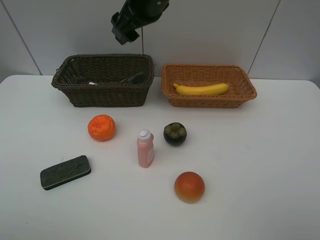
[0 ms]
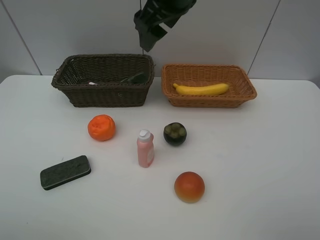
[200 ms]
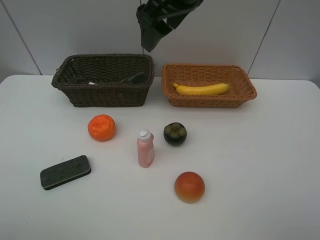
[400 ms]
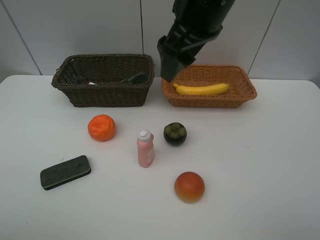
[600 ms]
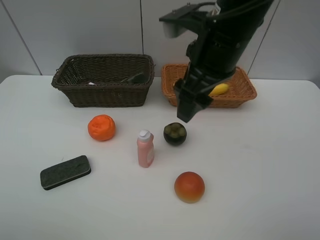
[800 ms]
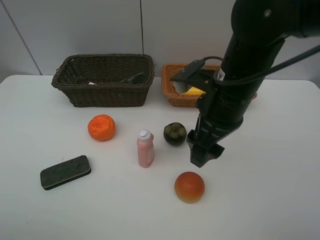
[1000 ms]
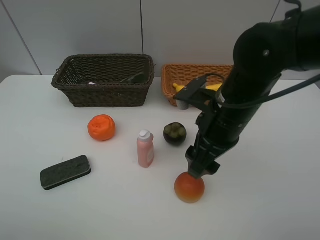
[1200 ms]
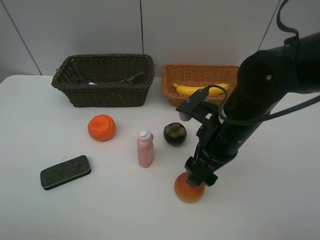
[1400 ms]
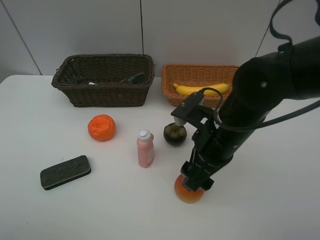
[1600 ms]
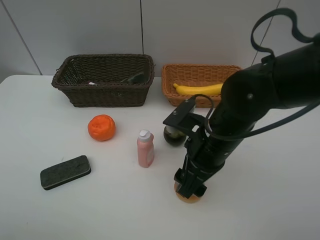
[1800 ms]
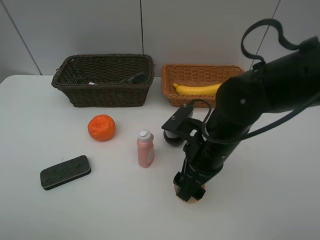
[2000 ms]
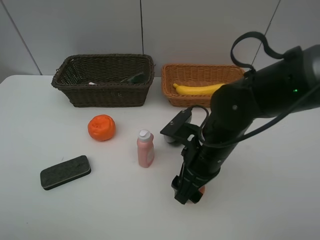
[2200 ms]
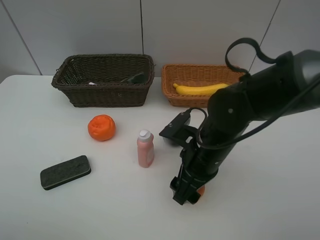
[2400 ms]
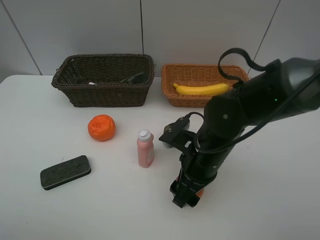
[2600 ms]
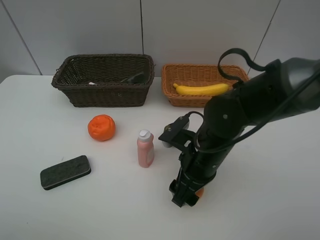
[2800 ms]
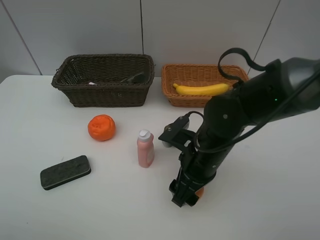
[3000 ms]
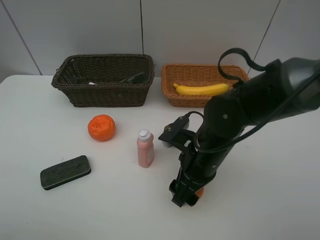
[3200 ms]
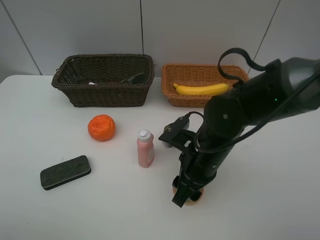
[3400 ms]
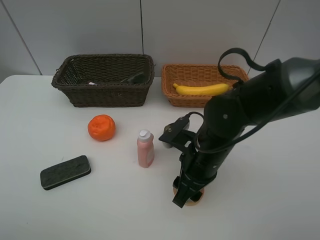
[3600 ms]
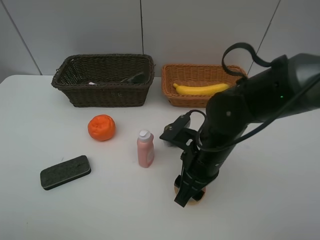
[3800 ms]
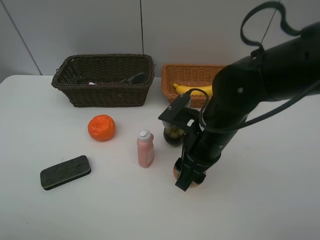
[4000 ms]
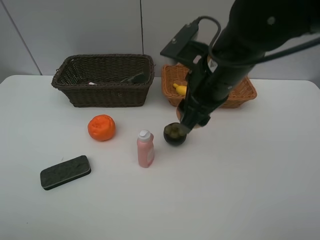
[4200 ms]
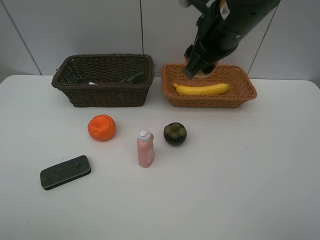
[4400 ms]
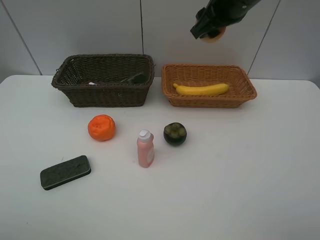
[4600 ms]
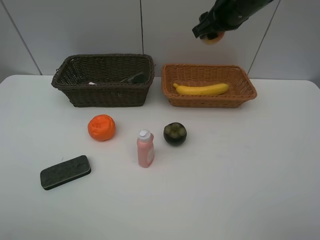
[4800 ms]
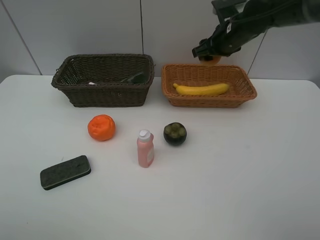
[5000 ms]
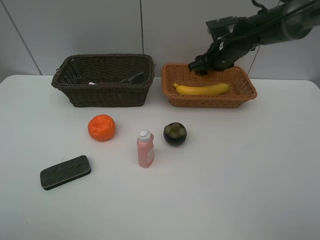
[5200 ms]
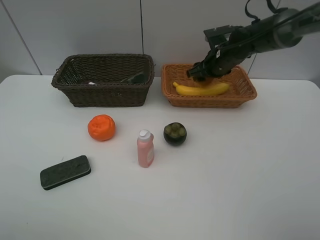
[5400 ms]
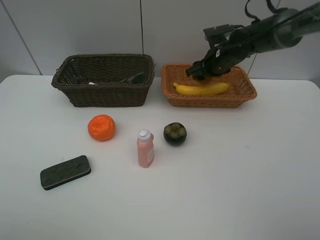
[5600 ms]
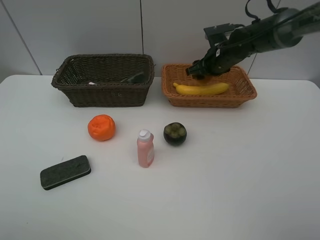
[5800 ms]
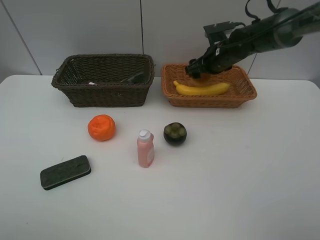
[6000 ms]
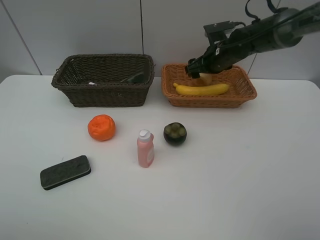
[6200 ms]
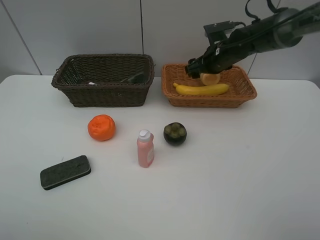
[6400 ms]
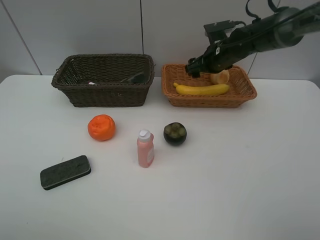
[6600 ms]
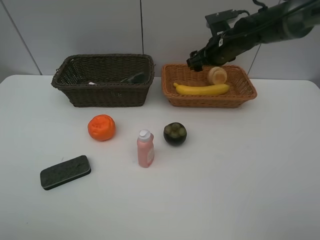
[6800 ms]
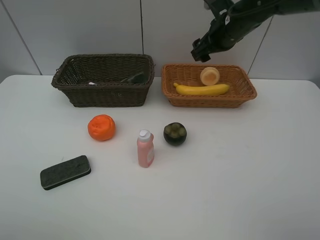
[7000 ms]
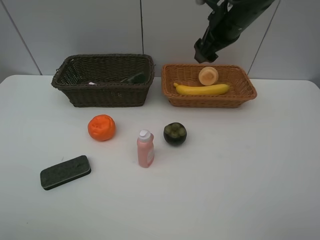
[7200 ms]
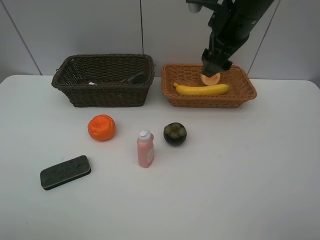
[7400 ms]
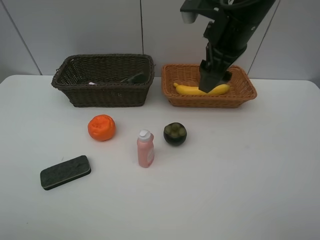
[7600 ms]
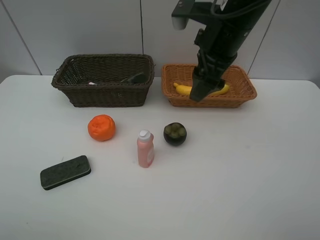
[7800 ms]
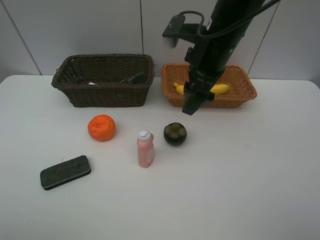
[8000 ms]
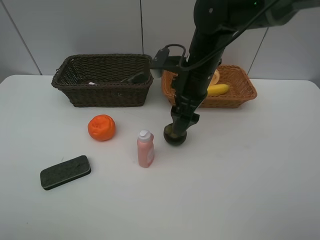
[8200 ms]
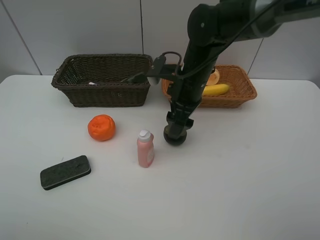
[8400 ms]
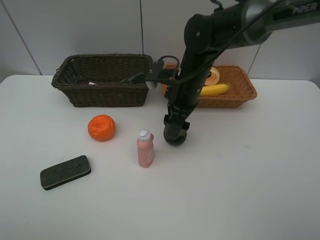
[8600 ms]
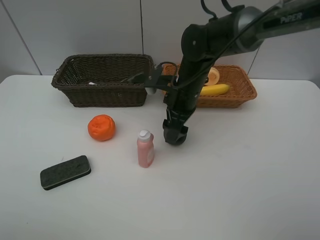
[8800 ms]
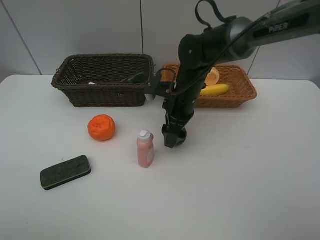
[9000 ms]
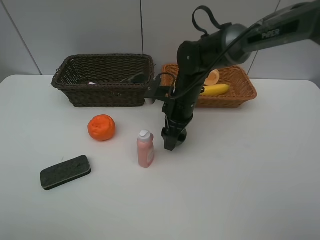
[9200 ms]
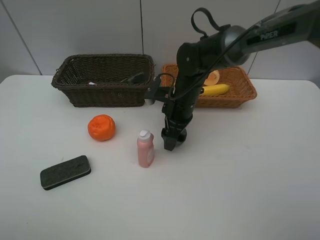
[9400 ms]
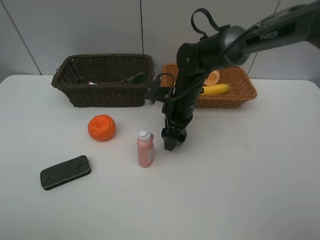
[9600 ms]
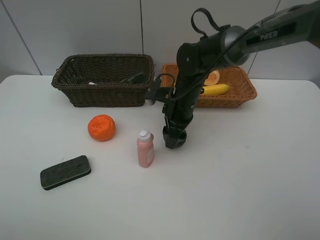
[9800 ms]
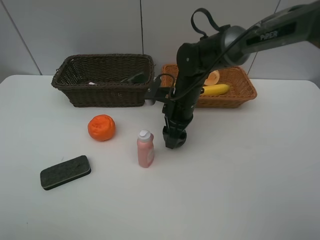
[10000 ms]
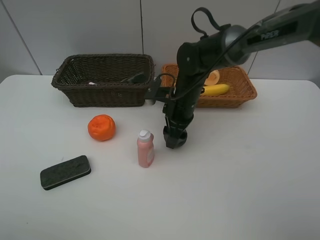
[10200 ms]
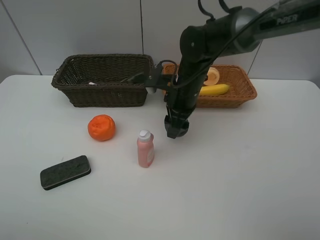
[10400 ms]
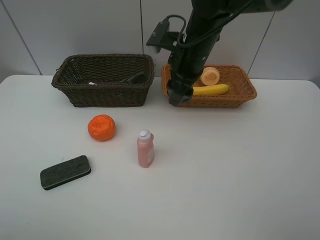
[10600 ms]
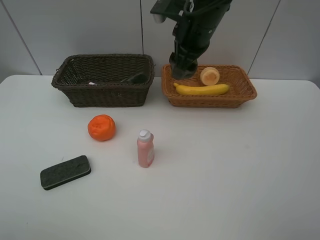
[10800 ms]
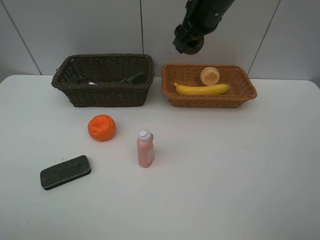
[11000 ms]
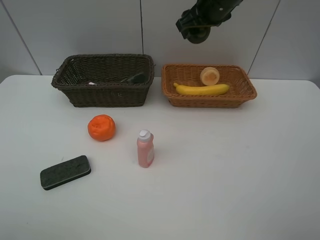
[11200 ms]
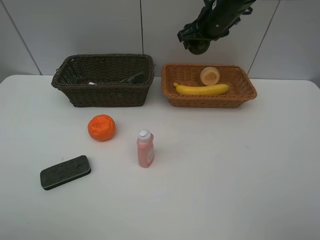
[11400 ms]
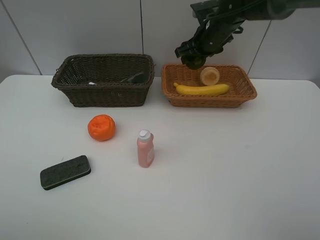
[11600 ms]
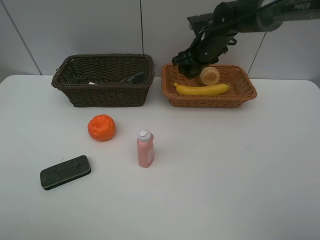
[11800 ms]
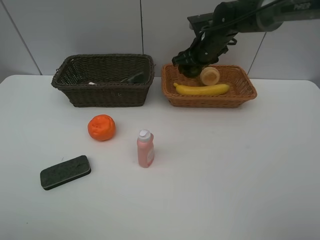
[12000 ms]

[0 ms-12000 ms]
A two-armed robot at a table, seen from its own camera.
Task of the whole recording: Place multiple objects separately in different baskets.
Step, 0 ms to 3800 ms: Pick up egg yolk pastry with right gripper.
Step, 4000 ms to 6800 ms: Place the egg yolk pastry in the light basket with right gripper.
Step, 7000 ms to 10400 ms: Pick up the mangosteen with right gripper.
0 ms to 1600 ms: The right gripper goes some 25 cm backward, downward and to the right.
1600 ms to 3000 ms: The right gripper is displaced downward by about 5 cm.
3000 ms to 4400 ms: The right gripper heads upward and forward, covering some 20 cm.
4400 ms to 6000 ms: The right gripper goes some 20 cm forward and downward.
6000 ms to 7600 ms: The right gripper is displaced backward and upward by roughly 20 cm.
7600 ms to 9000 ms: The right gripper is displaced downward by some 15 cm.
9000 ms to 10400 ms: There are only small adjustments of the grippers.
10400 ms to 12000 ms: The right gripper goes roughly 15 cm forward and to the right, and reaches roughly 15 cm upward, then returns.

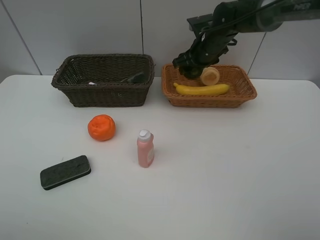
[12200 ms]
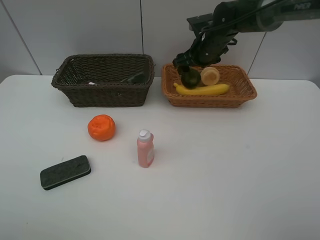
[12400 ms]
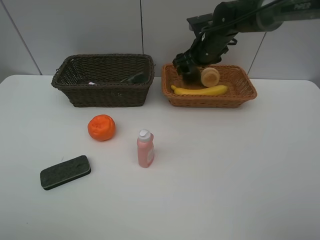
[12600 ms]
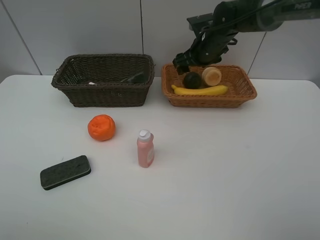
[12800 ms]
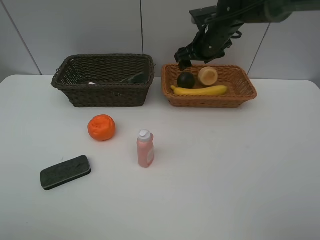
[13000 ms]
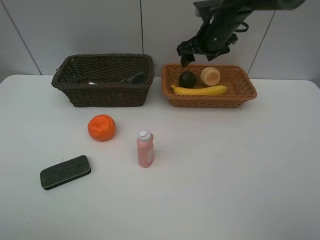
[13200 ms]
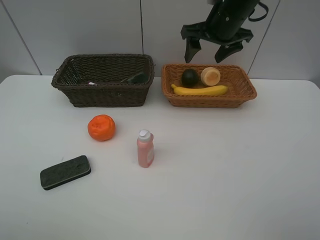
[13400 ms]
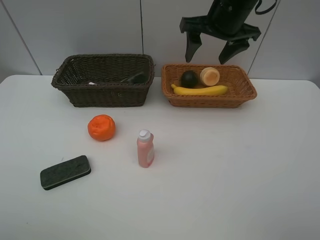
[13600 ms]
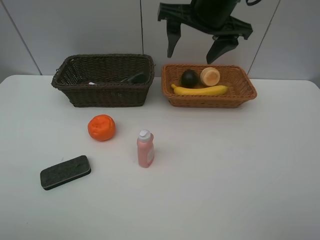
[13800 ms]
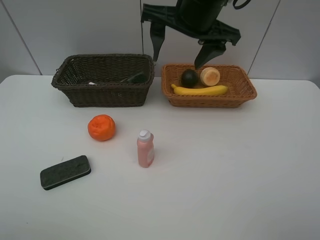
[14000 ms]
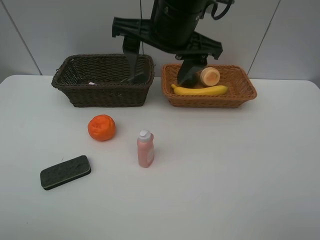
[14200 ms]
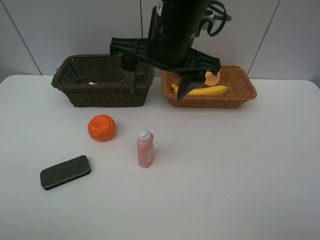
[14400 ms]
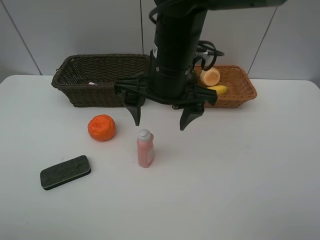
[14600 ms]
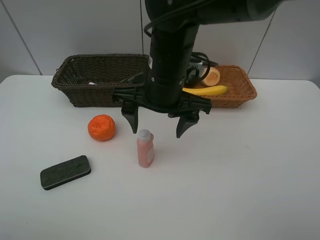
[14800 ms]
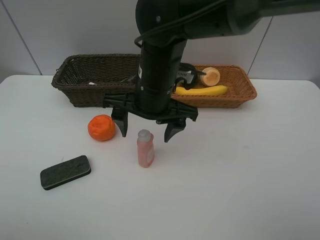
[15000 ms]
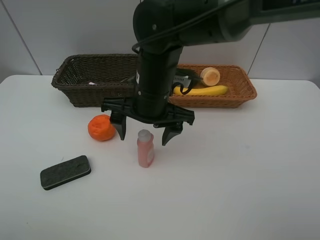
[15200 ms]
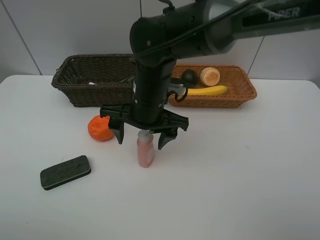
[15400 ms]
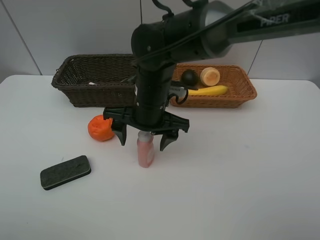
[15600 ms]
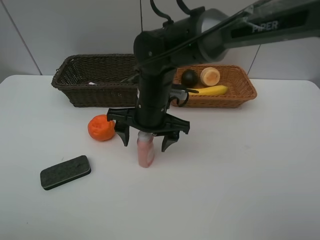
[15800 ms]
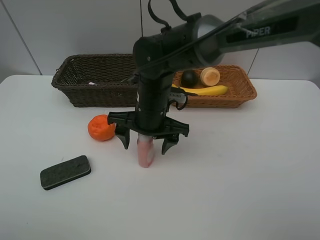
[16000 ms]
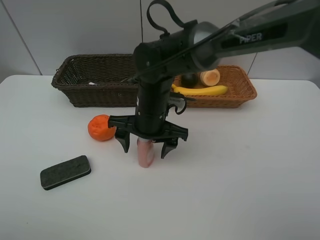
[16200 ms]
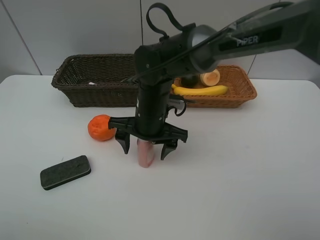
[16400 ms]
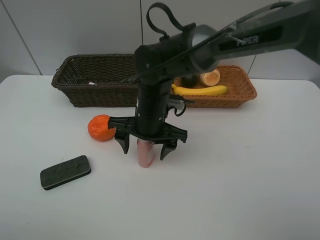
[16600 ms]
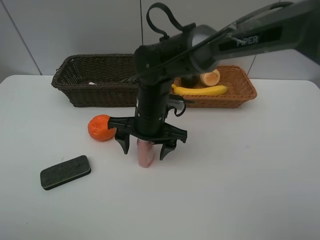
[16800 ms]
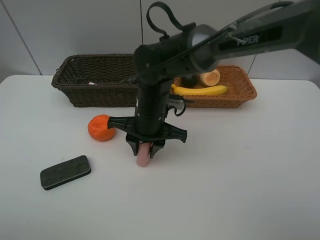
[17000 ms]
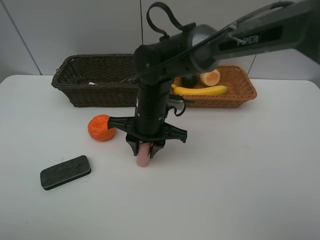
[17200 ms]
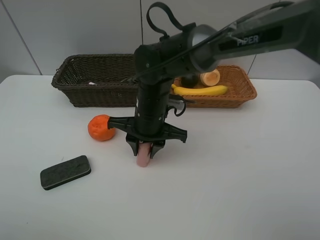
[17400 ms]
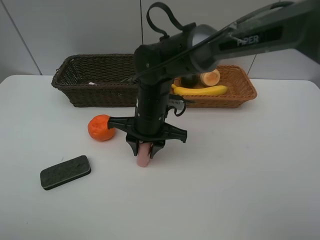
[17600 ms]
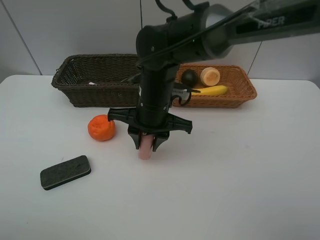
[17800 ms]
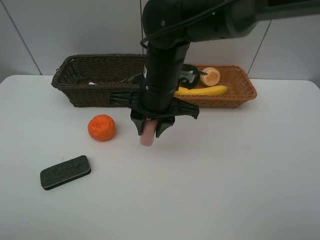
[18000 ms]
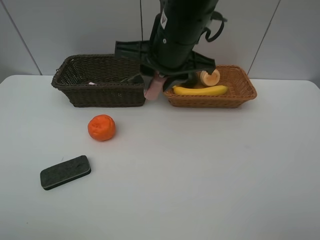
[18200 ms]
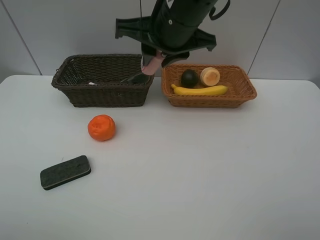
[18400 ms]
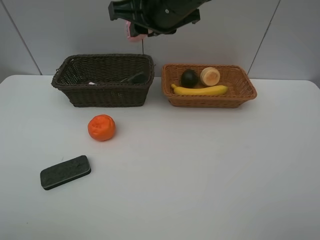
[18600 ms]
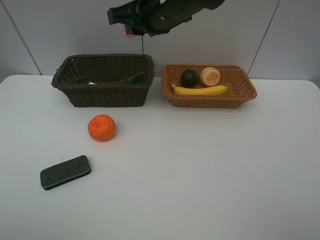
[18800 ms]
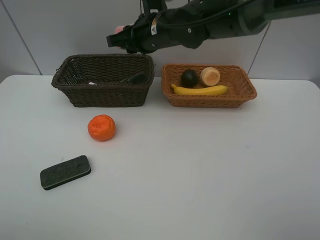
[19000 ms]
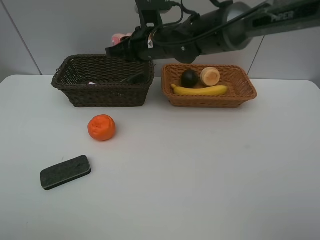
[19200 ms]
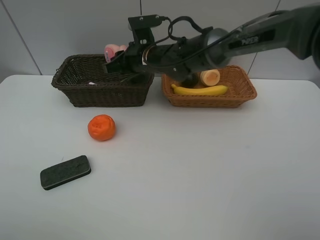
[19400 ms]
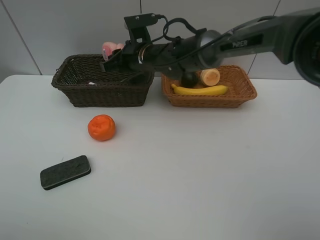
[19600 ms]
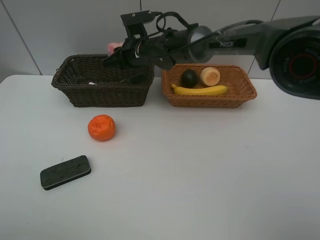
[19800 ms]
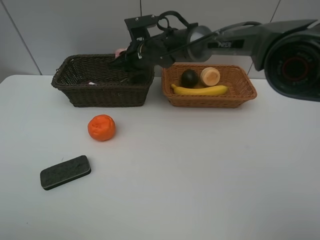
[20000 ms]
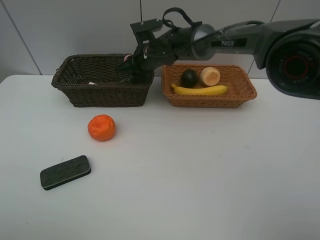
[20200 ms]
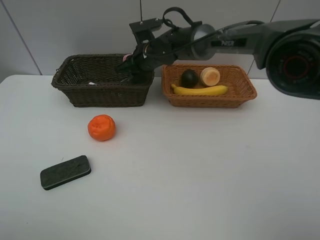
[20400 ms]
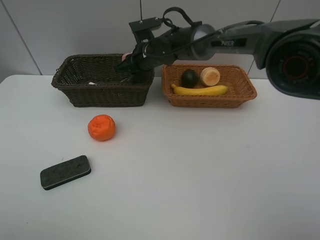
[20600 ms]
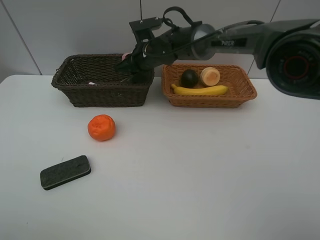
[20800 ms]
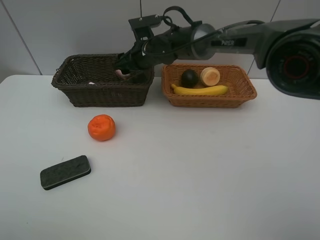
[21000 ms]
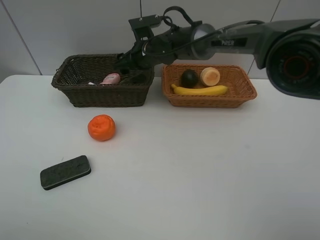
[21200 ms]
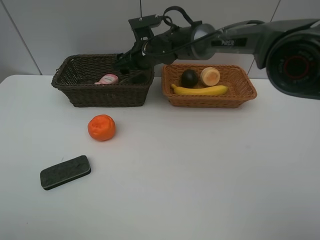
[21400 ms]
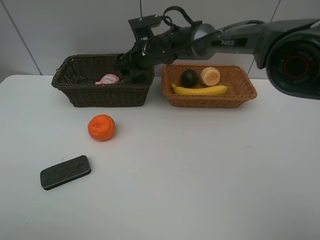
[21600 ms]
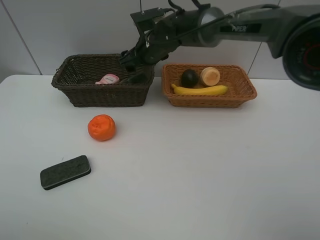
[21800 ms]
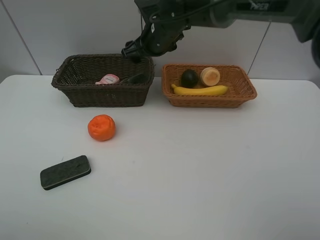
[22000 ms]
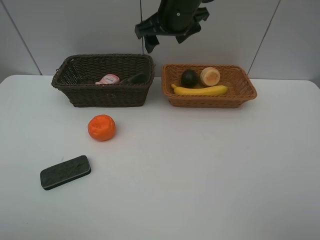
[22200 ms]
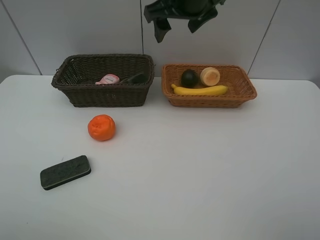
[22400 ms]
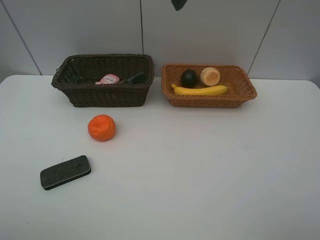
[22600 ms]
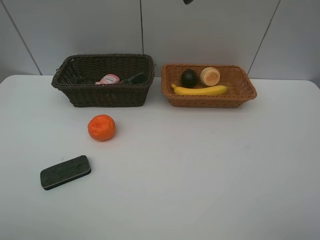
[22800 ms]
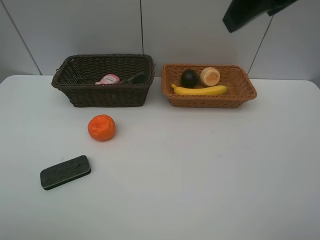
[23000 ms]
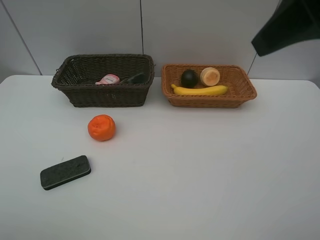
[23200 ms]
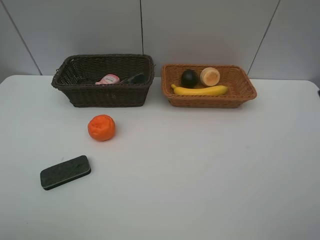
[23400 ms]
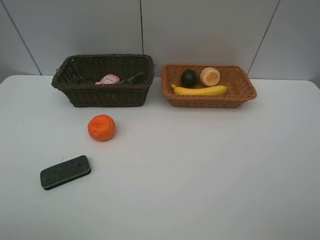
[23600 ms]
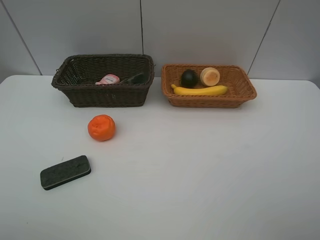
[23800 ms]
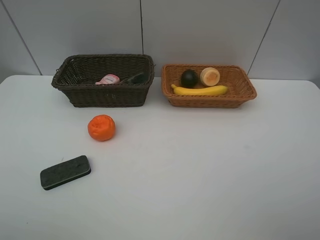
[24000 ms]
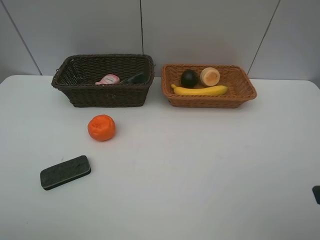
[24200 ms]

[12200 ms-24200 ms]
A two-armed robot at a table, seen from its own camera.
Task of the whole recording: Place multiple objects separately in different baskets.
Step, 13200 ms to 17800 ms: Pick up the laundry detergent with right gripper.
Step, 18000 ms to 21400 ms: Place the laundry detergent in the dark basket with right gripper.
12200 ms to 13800 ms: The right gripper travels upward and backward by about 20 cm.
13800 ms to 15200 ms: The right gripper goes about 15 cm downward, to the left and backward.
15200 ms to 16600 ms: The right gripper moves downward, about 5 cm.
16600 ms to 18200 ms: The right gripper is displaced upward by approximately 15 cm, and closes up.
18200 ms to 19800 ms: The right gripper travels forward and downward by some 20 cm.
19800 ms to 21200 ms: The right gripper opens its fingers.
21200 ms to 22600 ms: The right gripper travels upward, backward and to the right by approximately 30 cm.
